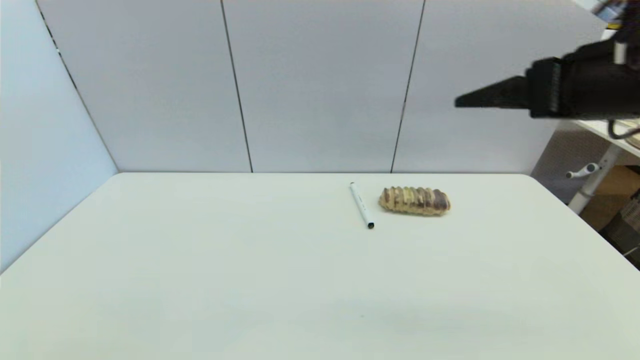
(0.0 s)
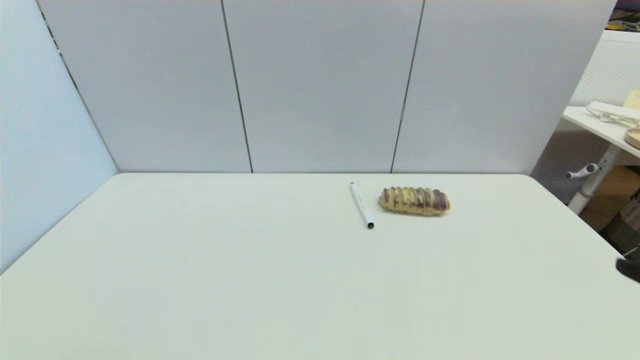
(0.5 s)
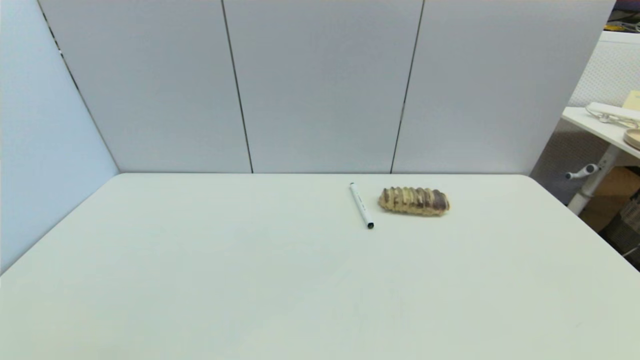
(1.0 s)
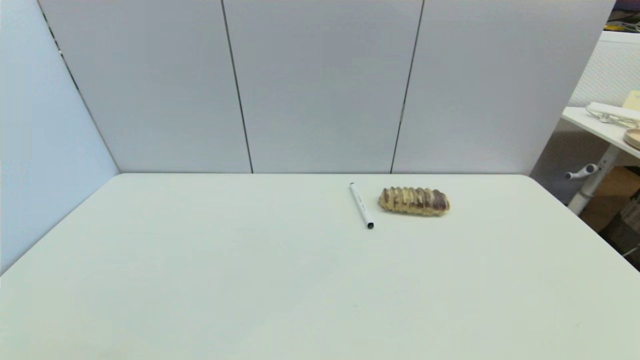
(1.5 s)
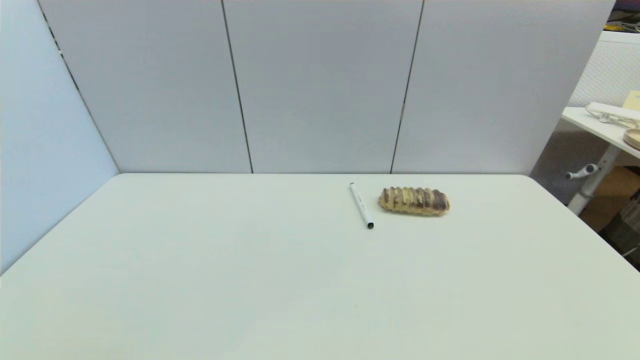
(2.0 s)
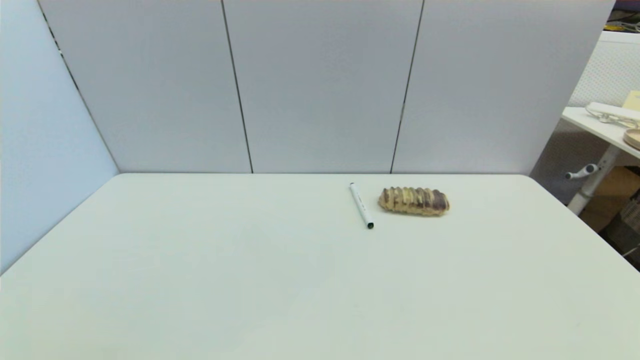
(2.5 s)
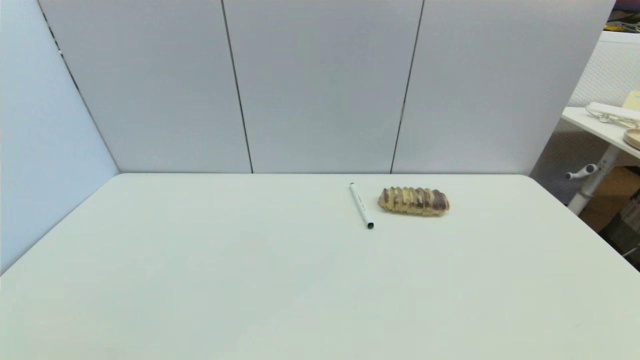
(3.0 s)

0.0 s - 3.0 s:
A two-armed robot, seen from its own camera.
Task of the whole recording: put the black marker in the designated position.
0.0 s - 1.5 s: The right gripper is displaced downward and backward by about 35 cm.
